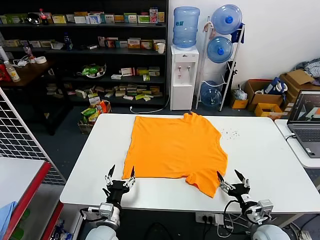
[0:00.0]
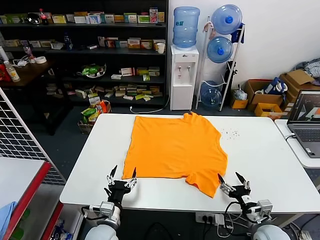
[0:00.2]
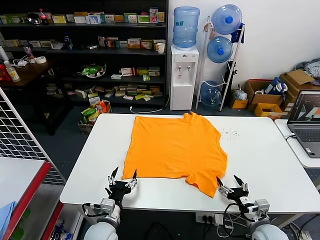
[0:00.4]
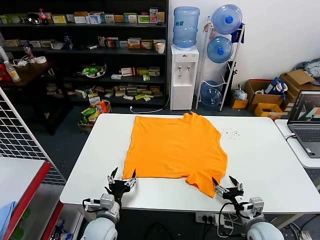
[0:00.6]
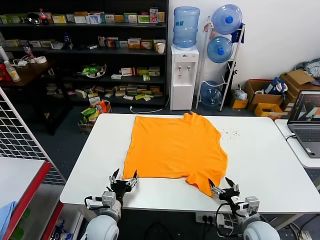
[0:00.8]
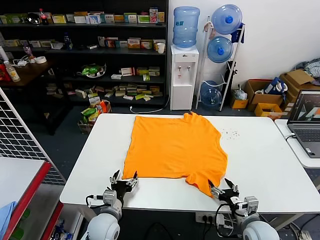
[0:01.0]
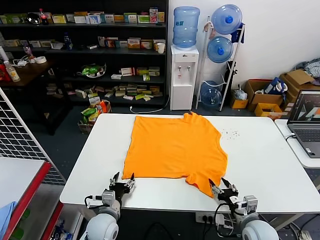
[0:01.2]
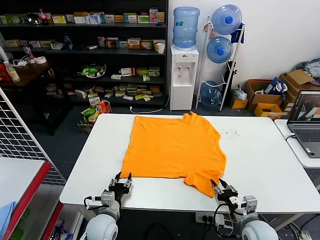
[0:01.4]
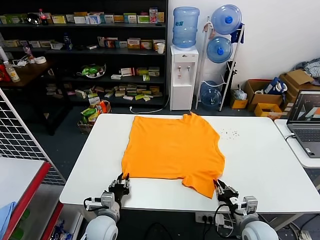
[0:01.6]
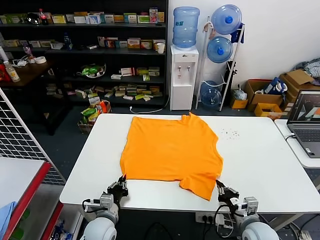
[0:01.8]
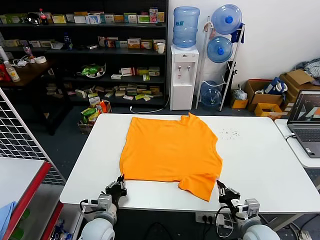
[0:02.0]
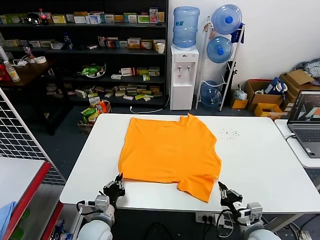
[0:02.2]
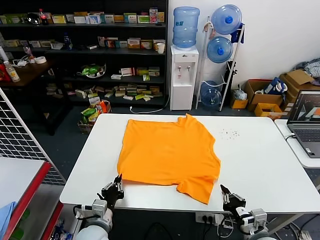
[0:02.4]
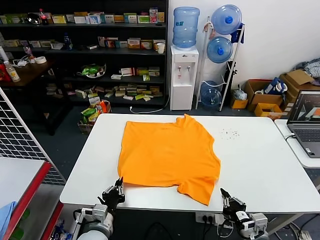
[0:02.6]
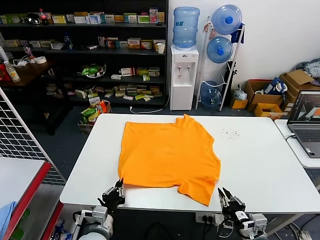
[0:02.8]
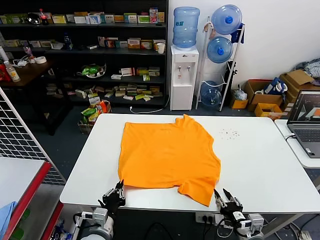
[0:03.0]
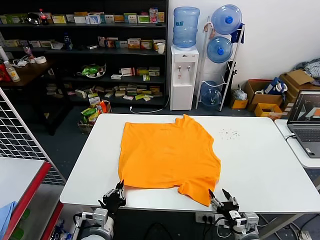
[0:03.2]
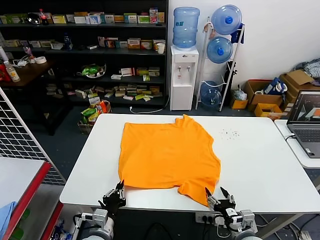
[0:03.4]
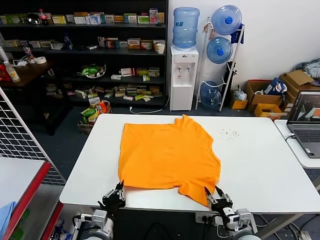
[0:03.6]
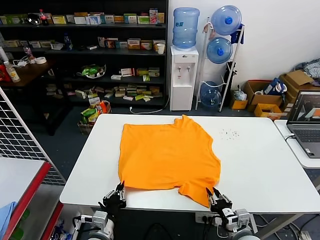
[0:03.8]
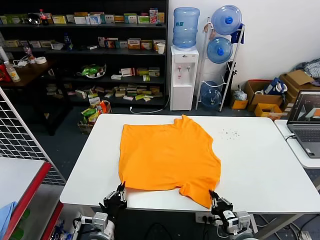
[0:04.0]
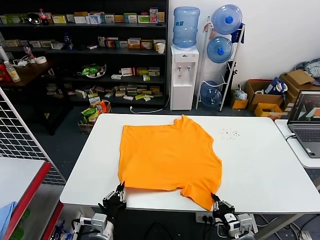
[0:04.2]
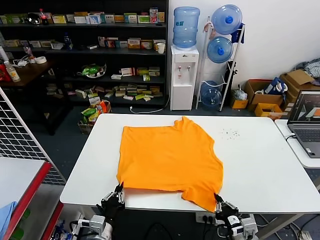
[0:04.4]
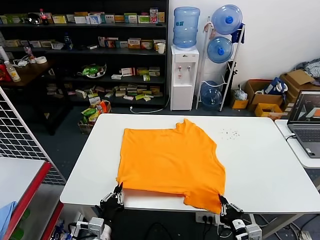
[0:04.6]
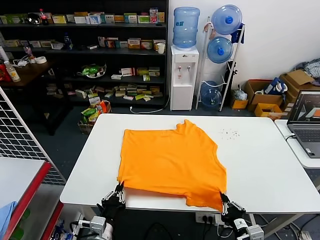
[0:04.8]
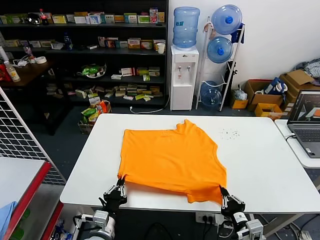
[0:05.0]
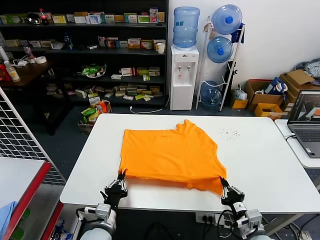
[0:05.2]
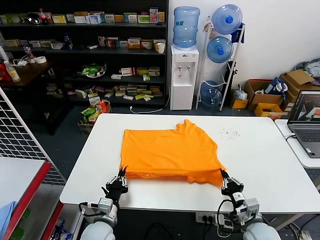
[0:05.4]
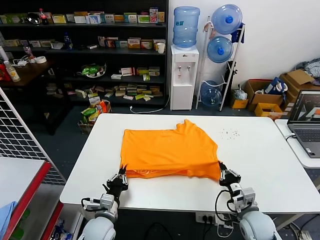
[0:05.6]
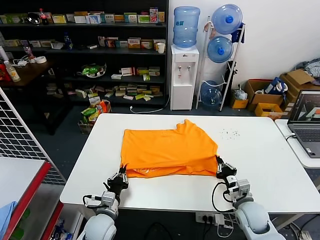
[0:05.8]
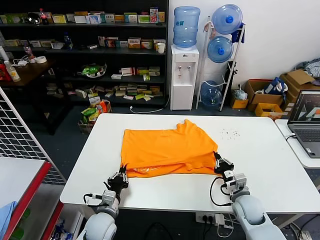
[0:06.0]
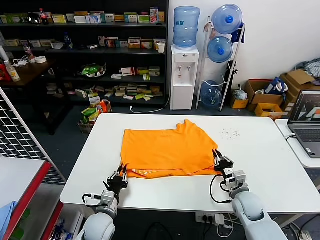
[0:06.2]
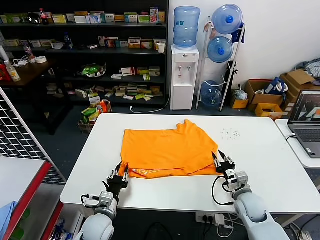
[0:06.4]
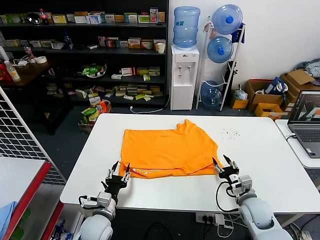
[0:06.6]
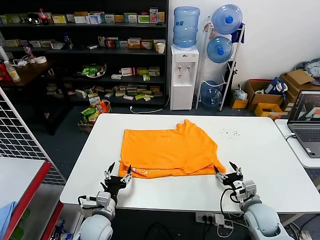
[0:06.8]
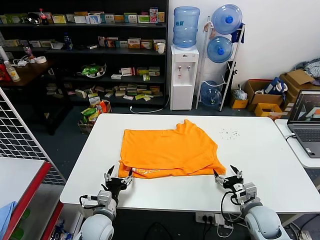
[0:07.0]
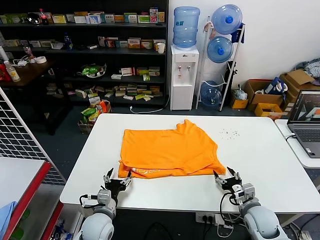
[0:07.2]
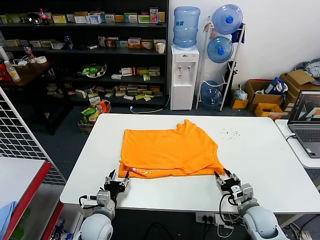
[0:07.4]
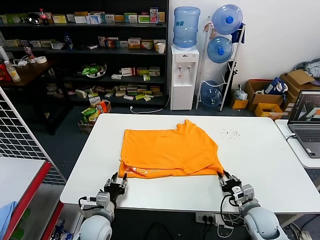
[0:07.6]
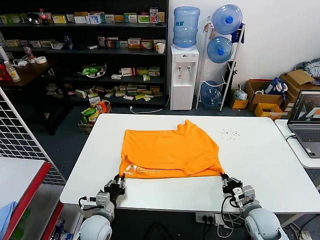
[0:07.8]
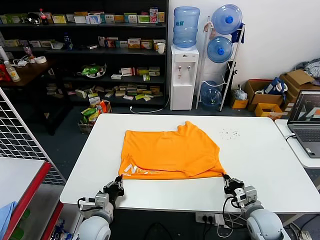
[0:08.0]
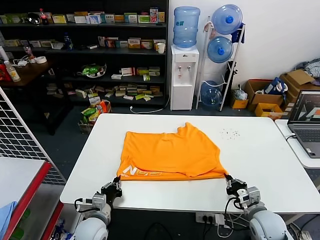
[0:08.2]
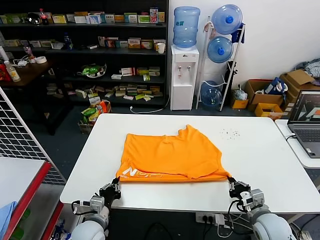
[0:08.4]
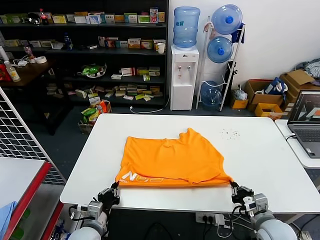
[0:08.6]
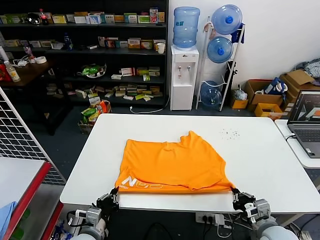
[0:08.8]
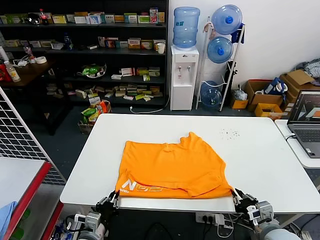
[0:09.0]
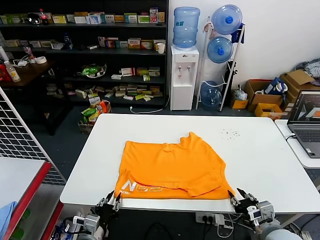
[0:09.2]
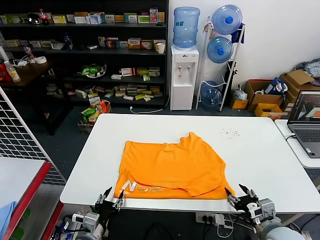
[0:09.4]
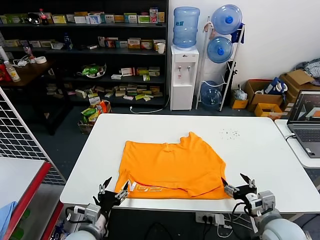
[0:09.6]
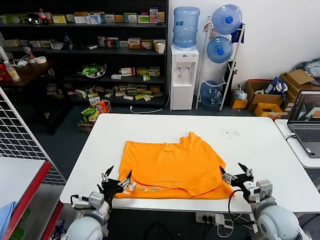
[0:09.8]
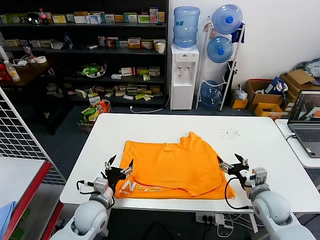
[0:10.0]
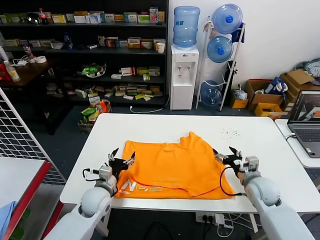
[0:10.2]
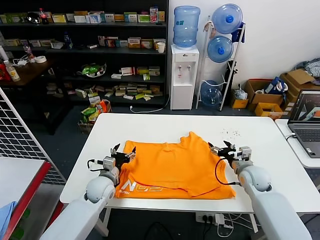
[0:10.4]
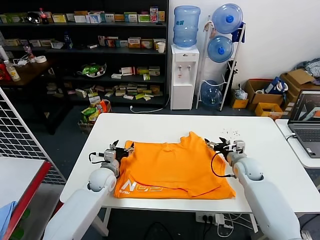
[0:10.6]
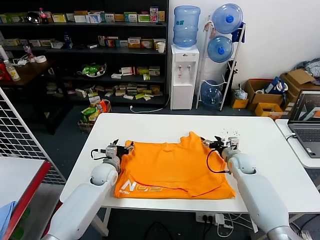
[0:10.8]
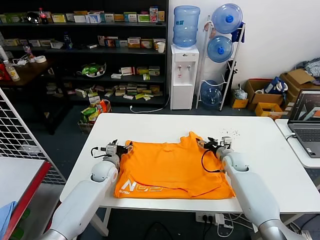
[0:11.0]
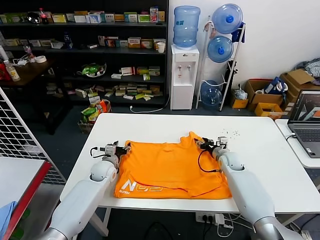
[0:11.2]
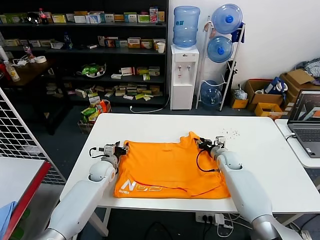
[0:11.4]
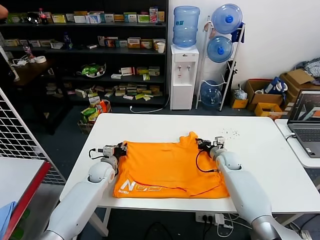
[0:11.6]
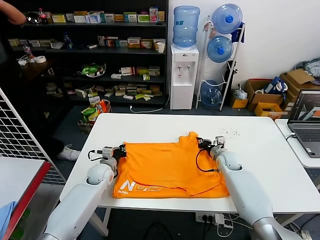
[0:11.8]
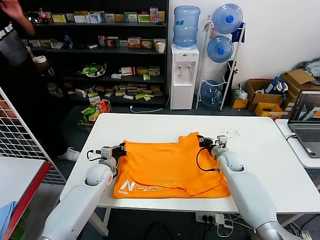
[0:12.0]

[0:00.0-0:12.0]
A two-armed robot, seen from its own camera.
Task of the whole recording: fold and organize the clothes.
Step, 0:00.0 to 0:04.2: use both grippers simultaneously to clamp the lower edge of the clothing fabric.
Step, 0:04.4 to 0:06.4: use both grippers to drag the lower edge of the fabric forward and fold it over the upper edge.
Step, 0:06.6 to 0:09.2: Drag the clothes downward with both gripper.
Step, 0:09.4 to 0:11.8: use both grippers simultaneously to clamp the upper edge of the clothing fabric.
0:01.6 to 0:03.0: Both grippers travel together backward, about 5 cm. The right gripper opens.
0:03.0 to 0:04.4: The right gripper closes.
0:04.4 to 0:06.0: The left gripper is displaced forward by roughly 10 cm, while the right gripper is displaced forward by about 15 cm.
0:06.0 to 0:07.6: The left gripper opens; the right gripper moves backward, roughly 5 cm, and opens, then closes once more.
0:07.6 to 0:09.0: The right gripper is displaced backward and upward by approximately 10 cm. The left gripper shifts roughly 10 cm backward, and closes.
0:09.0 to 0:10.4: Both grippers move forward, approximately 20 cm. The right gripper opens. Meanwhile the left gripper opens.
0:10.4 to 0:12.0: The left gripper is displaced forward by some 5 cm, and closes, while the right gripper shifts roughly 10 cm forward and to the left, and closes its fingers.

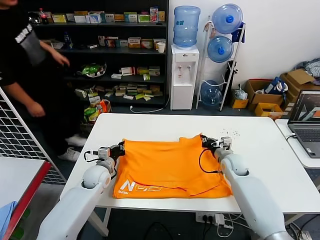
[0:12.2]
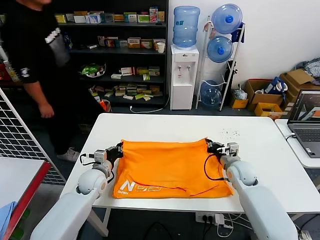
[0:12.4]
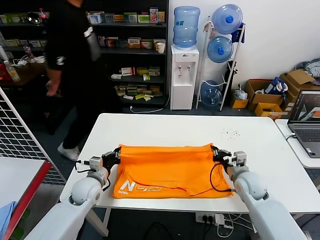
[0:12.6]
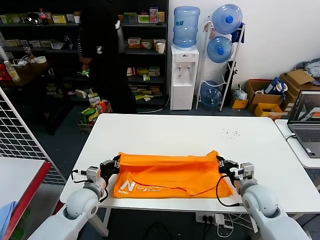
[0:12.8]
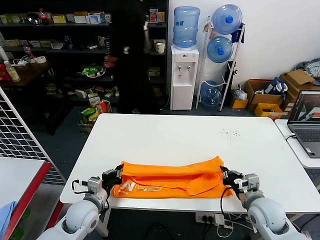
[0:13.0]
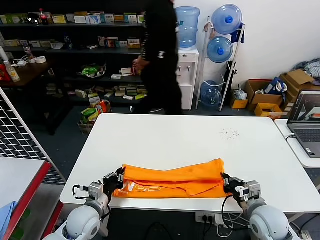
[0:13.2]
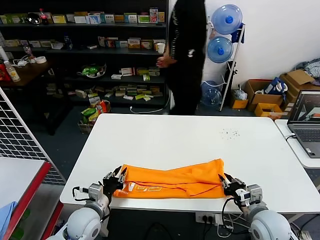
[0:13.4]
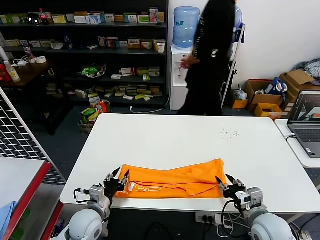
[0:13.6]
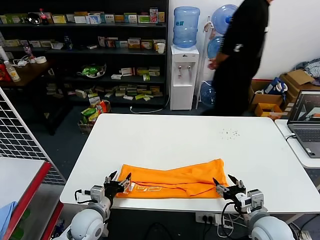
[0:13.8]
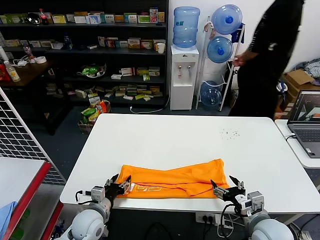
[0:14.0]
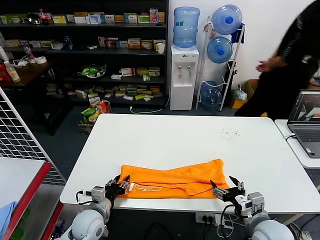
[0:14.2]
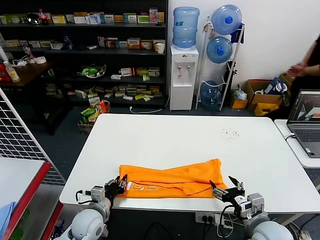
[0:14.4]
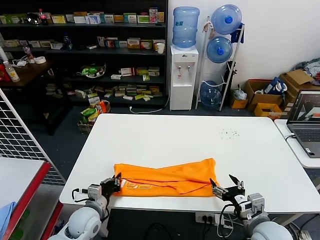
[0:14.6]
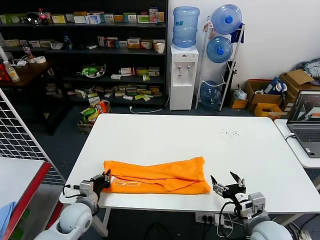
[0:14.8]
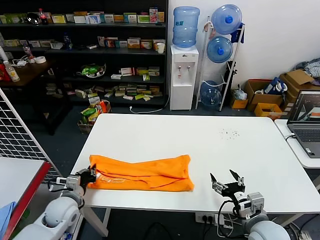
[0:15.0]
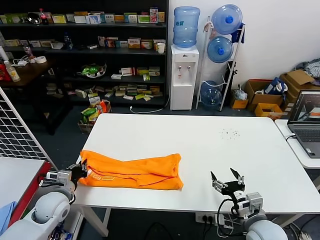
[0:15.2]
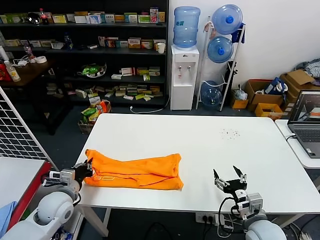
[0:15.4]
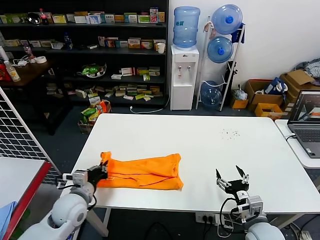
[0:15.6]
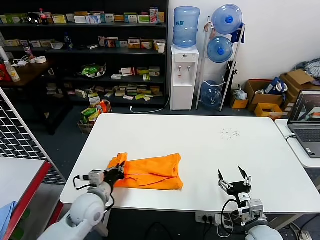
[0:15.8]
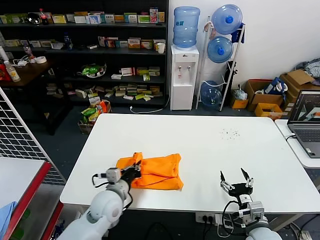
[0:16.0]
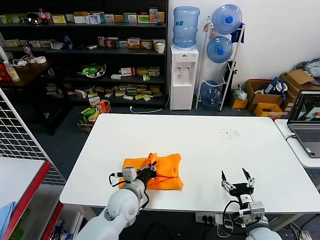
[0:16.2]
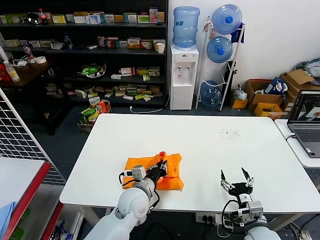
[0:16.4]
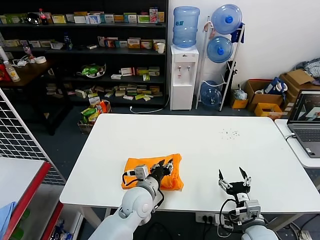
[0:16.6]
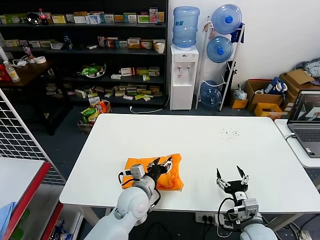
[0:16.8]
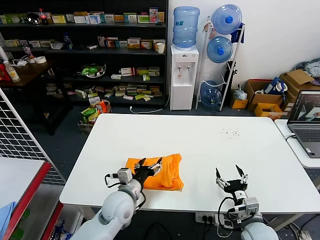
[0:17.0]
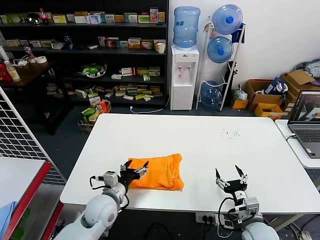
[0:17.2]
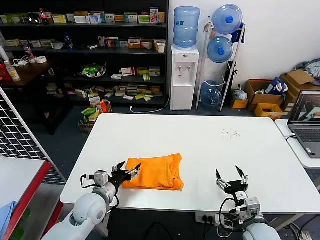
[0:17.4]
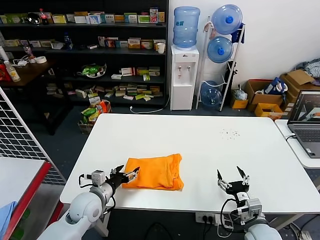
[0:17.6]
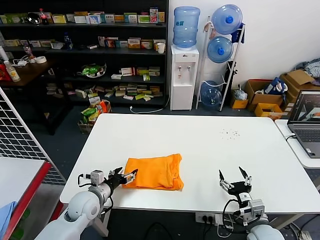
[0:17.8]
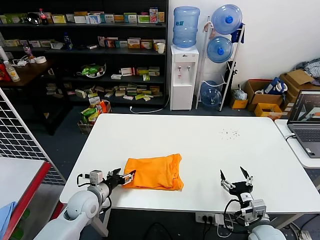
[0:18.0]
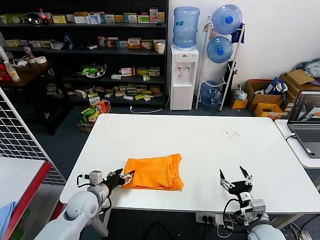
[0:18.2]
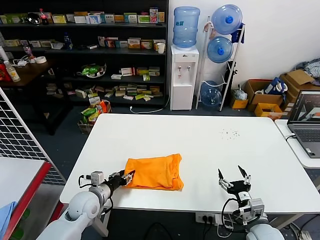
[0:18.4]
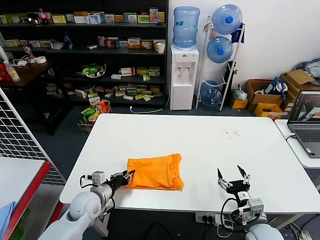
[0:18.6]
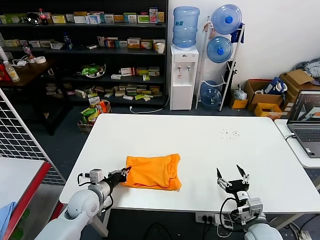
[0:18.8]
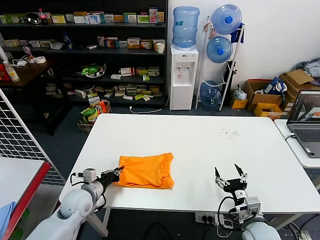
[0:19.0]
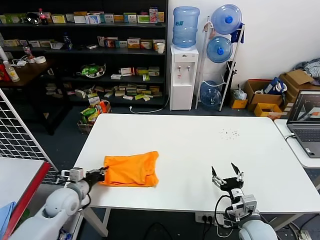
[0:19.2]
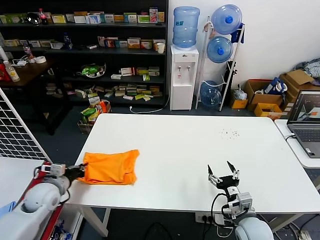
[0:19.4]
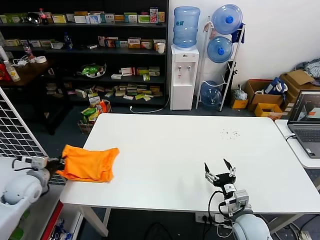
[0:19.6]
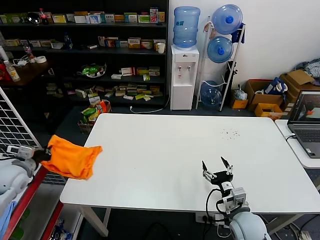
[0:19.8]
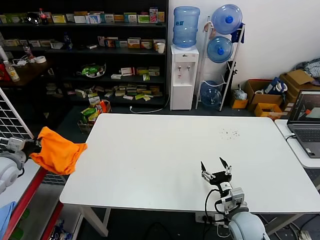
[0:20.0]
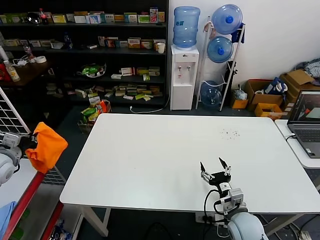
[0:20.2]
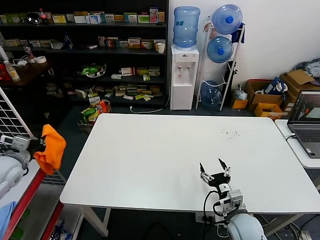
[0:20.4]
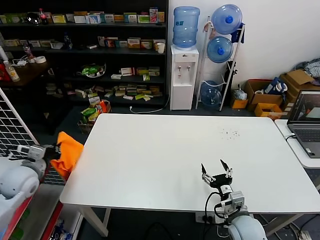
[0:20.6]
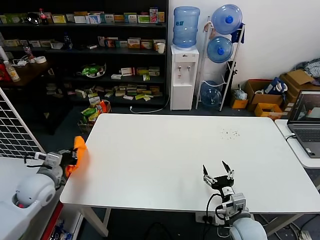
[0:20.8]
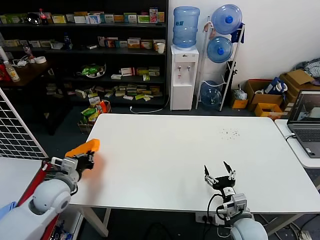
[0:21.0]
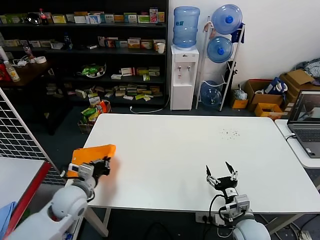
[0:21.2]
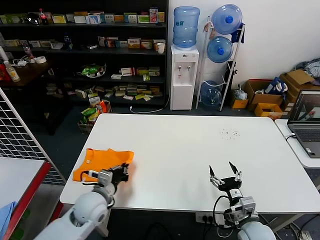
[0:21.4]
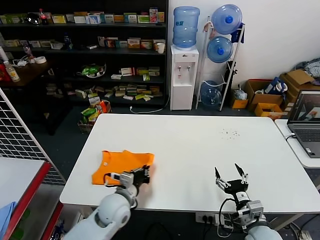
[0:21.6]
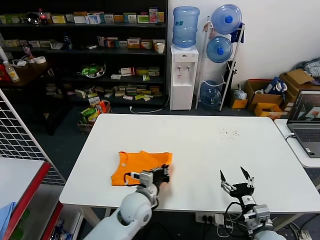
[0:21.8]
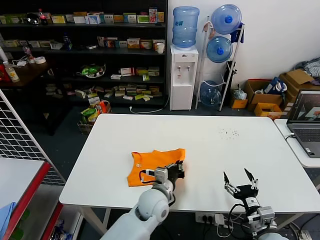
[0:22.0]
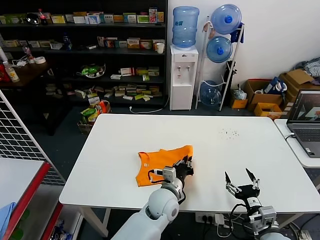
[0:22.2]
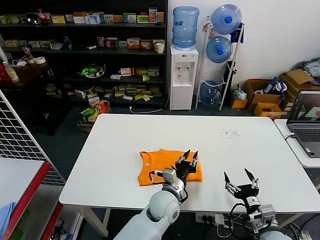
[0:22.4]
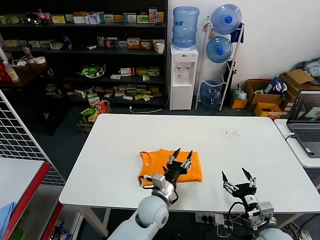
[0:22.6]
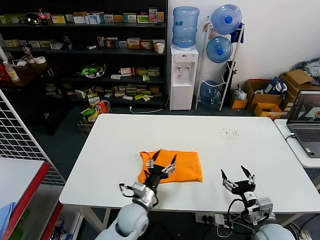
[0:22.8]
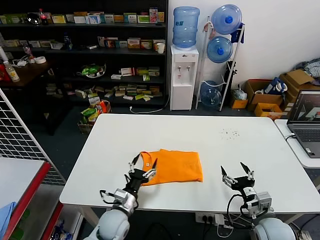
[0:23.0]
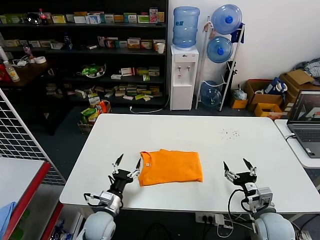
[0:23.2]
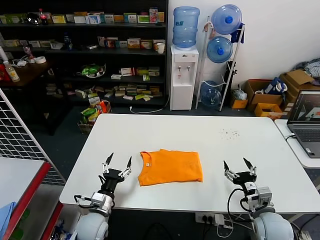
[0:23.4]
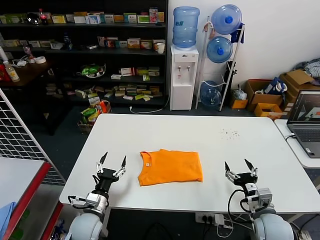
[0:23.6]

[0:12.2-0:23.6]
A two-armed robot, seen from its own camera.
Task of the whole recording: fold and organize the clothes.
Step, 0:12.2 to 0:13.2: use both grippers to drag the upper edge of the fabric backward and fold it over the lower edge.
Step, 0:13.4 to 0:14.4: use the left gripper to clamp the left edge of the fabric.
Step, 0:14.6 to 0:16.4: use the left gripper to drag the left edge of the fabric to the left and folds it over the right edge.
Step, 0:16.6 to 0:22.2: Flip the folded clothes over with left gripper.
0:12.2 to 0:13.6: Both grippers move backward, approximately 20 cm. The right gripper opens up; the left gripper opens its fingers.
0:13.6 to 0:15.0: The right gripper opens its fingers; the left gripper travels to the left by some 10 cm, and closes.
0:15.0 to 0:16.4: The right gripper shifts about 5 cm downward, while the left gripper moves to the right, some 25 cm.
0:16.4 to 0:17.8: The left gripper moves to the left, some 15 cm, and opens up.
0:17.8 to 0:19.4: The left gripper shifts about 10 cm to the left, and closes.
0:19.4 to 0:20.8: The left gripper is displaced upward by about 5 cm.
0:20.8 to 0:22.2: The right gripper travels to the right by approximately 5 cm; the left gripper moves to the right, about 40 cm.
0:22.2 to 0:23.6: The left gripper goes some 25 cm to the left, and opens up. The right gripper is displaced forward by roughly 5 cm.
